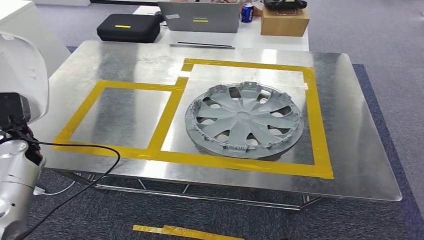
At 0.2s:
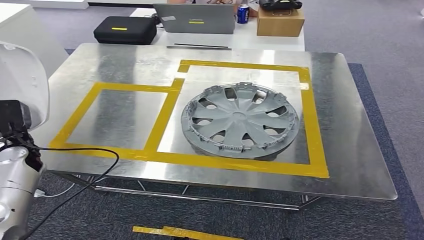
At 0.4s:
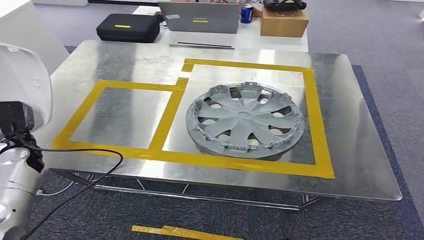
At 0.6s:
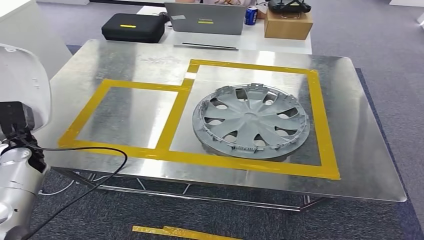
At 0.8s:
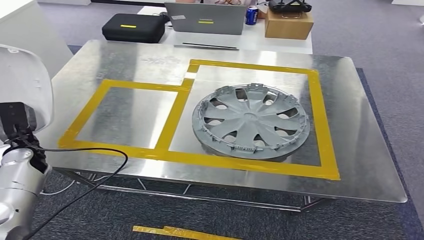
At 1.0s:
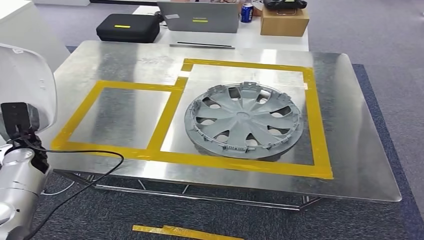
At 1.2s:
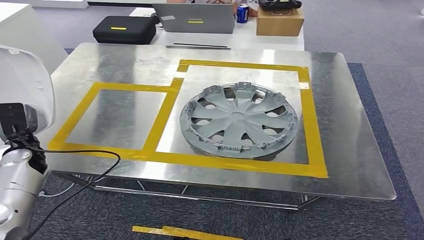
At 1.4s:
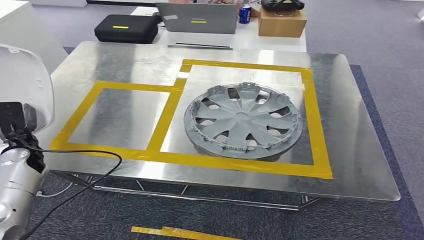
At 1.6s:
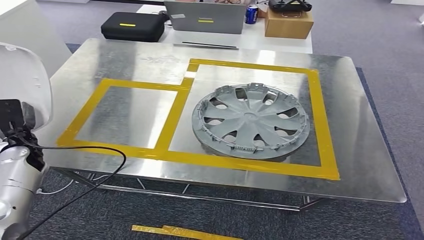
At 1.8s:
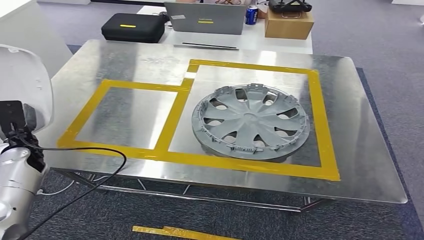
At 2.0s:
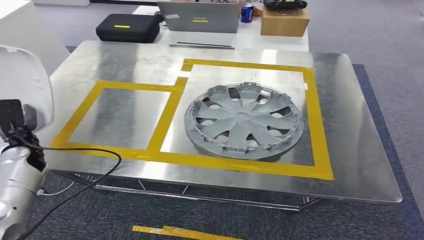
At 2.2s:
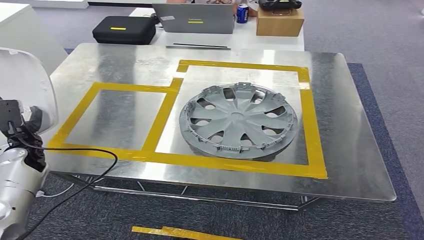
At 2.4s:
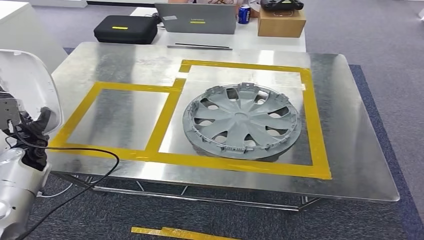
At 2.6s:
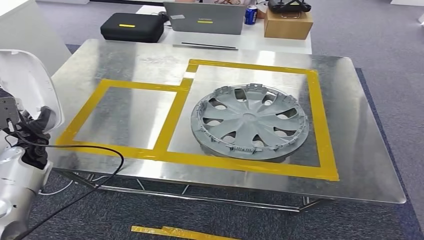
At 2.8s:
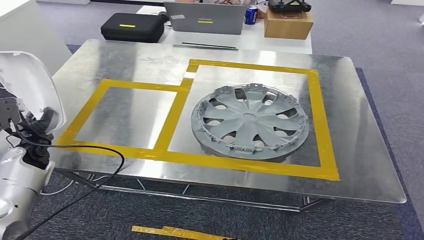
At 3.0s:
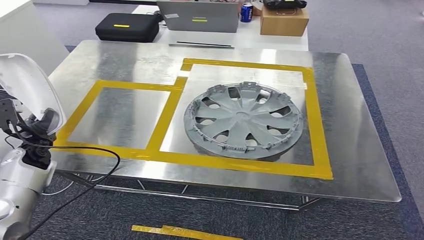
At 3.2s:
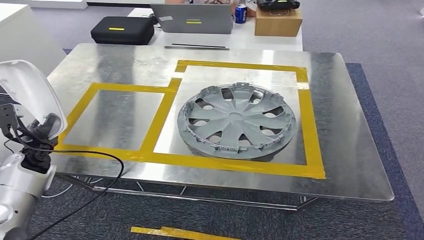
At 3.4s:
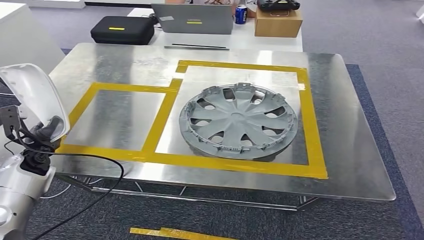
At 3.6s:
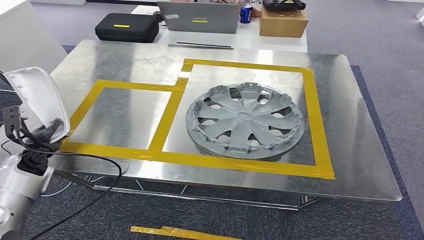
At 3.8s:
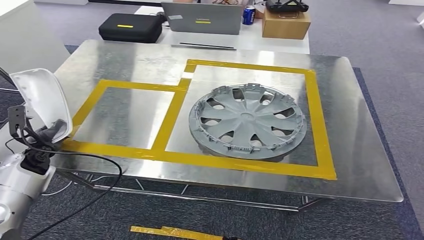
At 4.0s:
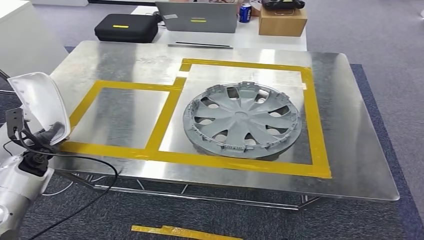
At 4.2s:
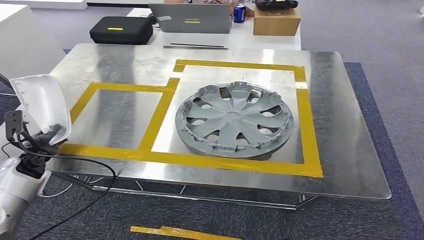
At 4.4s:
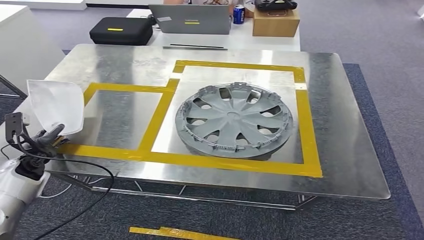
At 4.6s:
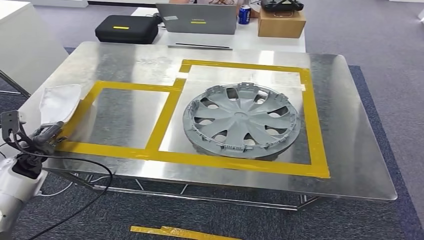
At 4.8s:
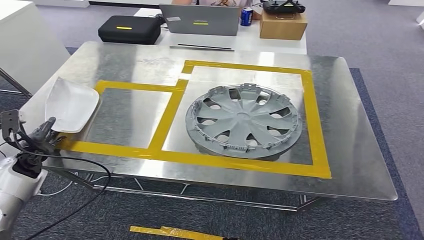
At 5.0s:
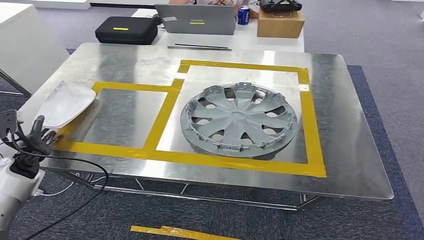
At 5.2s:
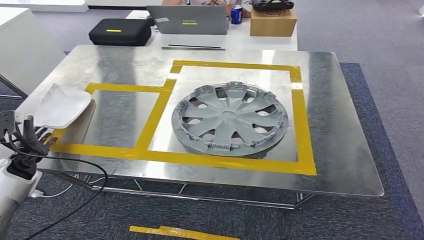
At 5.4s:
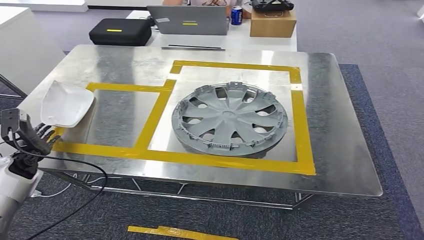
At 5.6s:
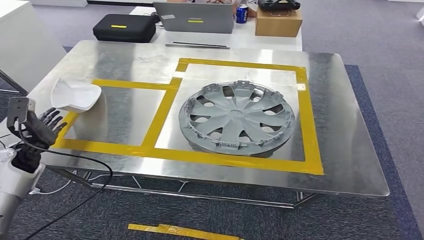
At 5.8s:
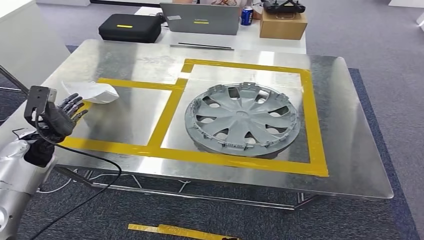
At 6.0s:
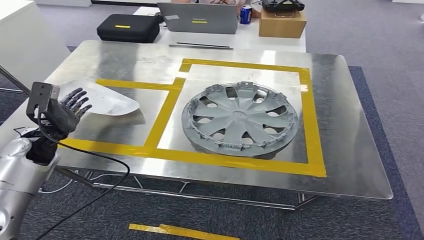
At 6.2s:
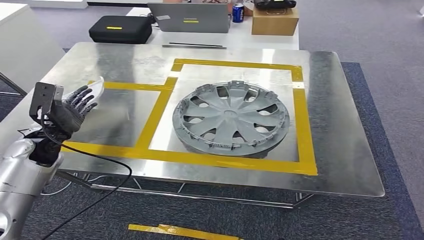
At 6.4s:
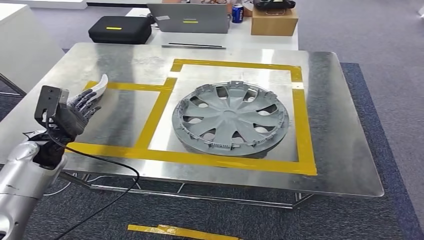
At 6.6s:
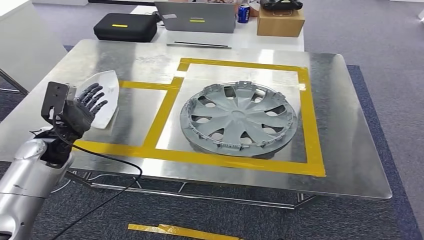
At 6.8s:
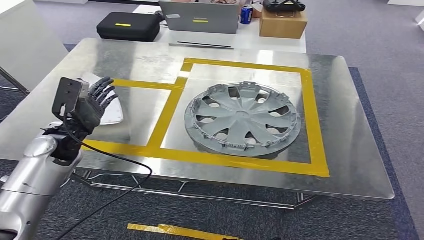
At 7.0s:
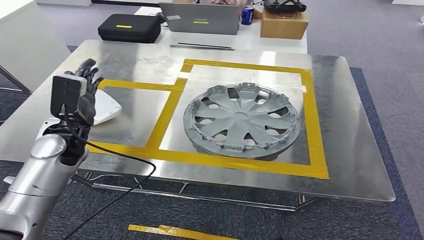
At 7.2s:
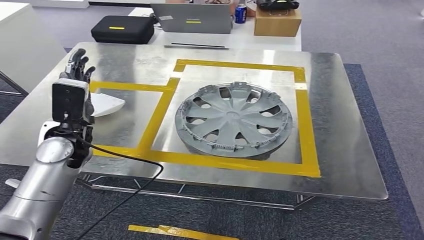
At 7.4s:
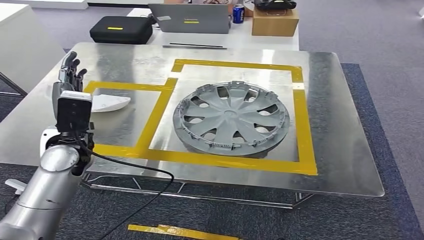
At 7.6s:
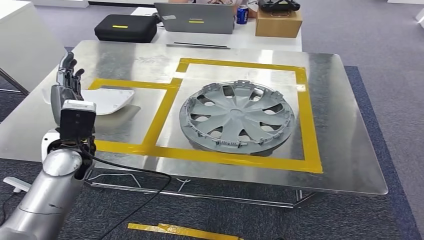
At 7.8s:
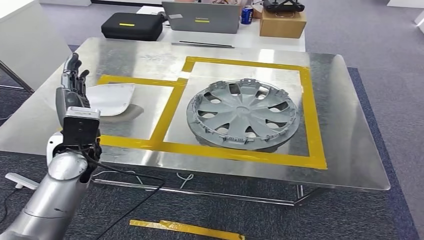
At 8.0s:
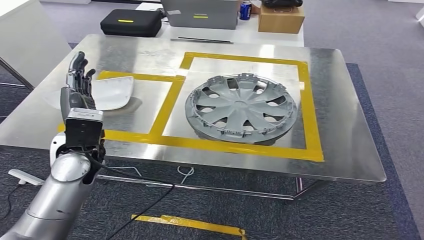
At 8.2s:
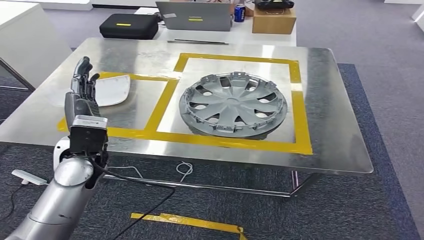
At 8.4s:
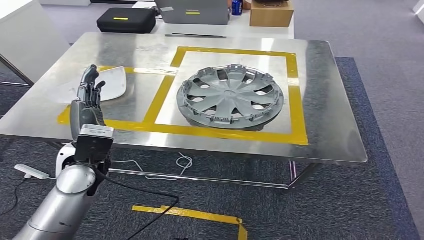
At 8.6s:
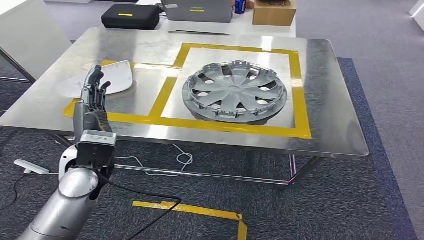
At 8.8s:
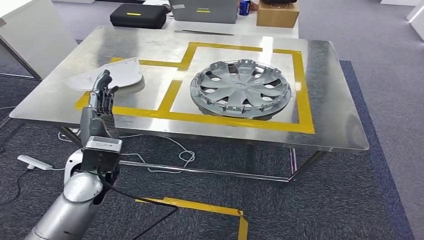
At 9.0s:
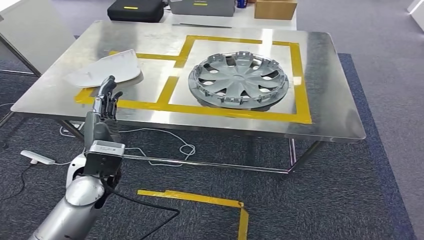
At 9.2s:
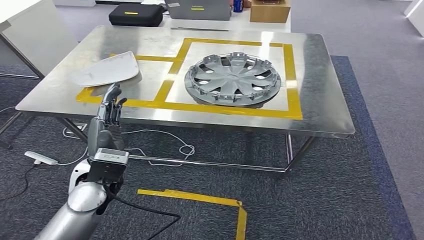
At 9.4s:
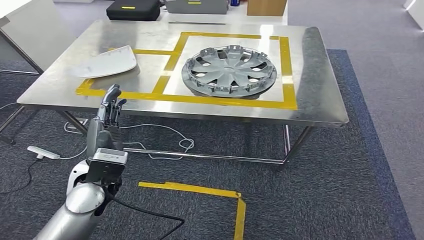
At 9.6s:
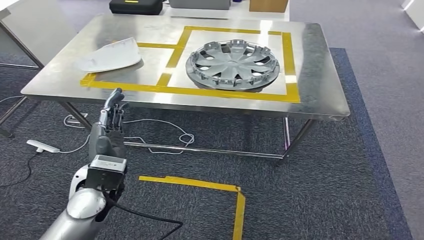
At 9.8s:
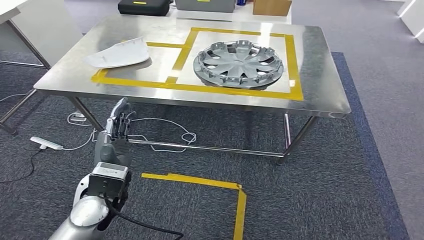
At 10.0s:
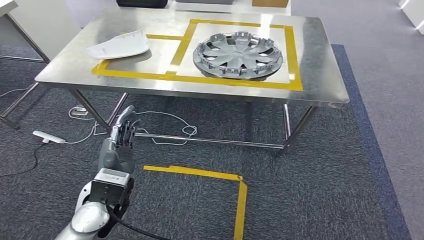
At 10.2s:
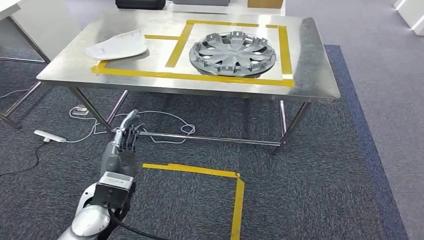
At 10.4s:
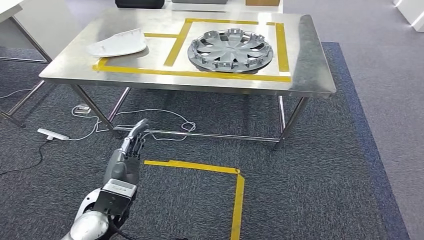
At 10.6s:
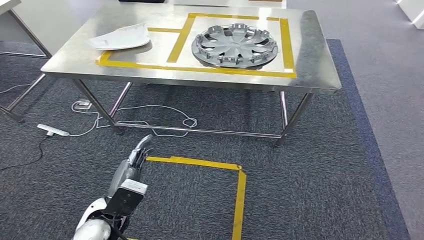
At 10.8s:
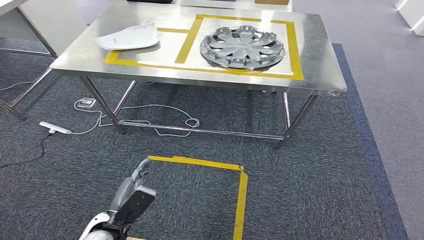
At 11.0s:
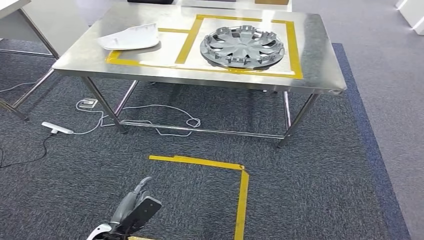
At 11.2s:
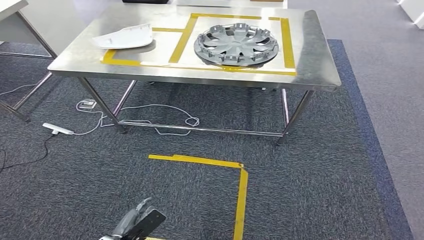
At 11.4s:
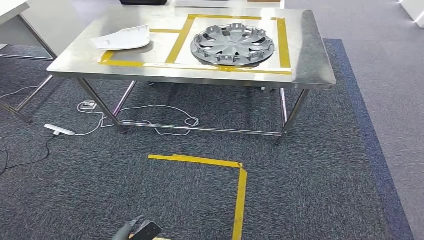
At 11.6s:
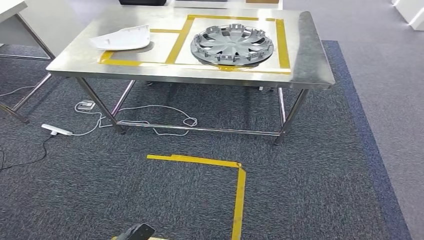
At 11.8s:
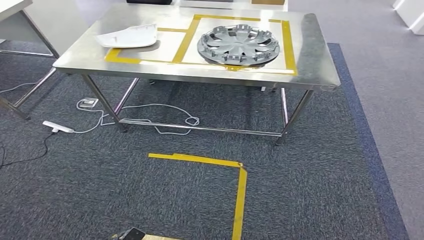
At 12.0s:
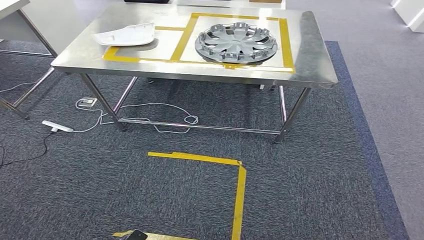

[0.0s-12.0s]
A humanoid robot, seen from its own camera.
Step, 0.0s to 7.0s: Insert the small component into the corresponding slot on the workbench.
0.0s to 1.6s: The hands stay close to where they were, moving slightly.

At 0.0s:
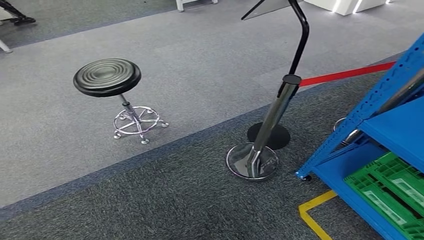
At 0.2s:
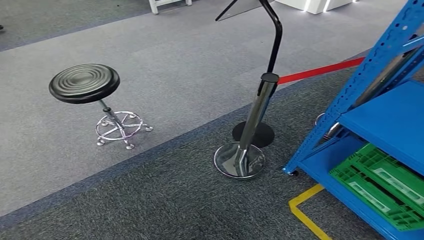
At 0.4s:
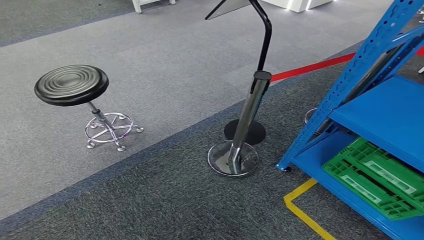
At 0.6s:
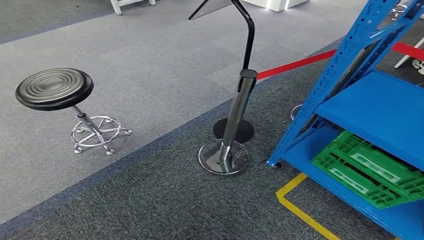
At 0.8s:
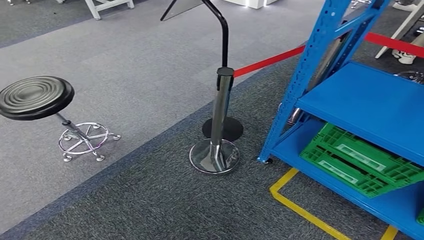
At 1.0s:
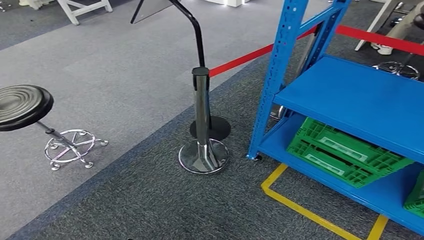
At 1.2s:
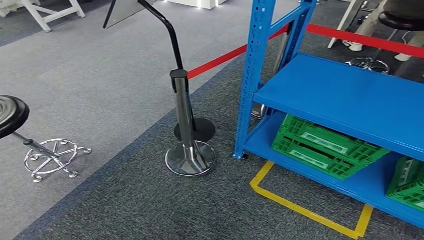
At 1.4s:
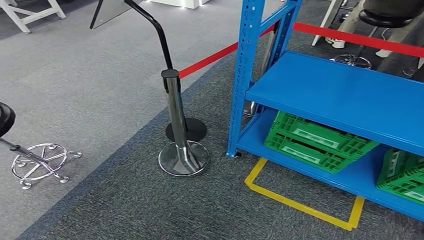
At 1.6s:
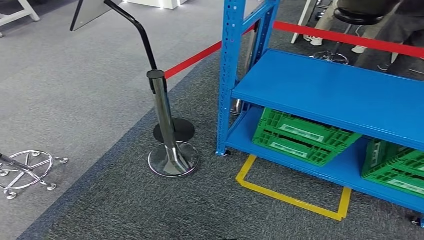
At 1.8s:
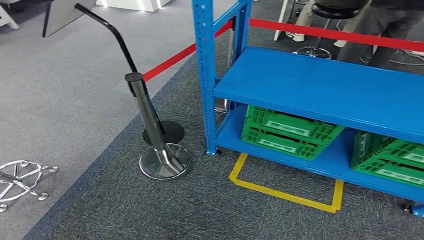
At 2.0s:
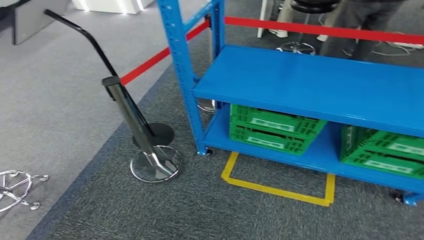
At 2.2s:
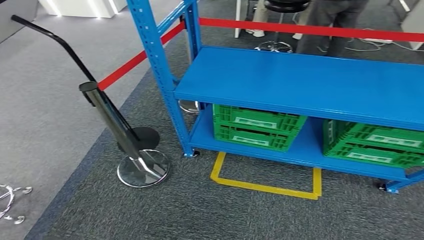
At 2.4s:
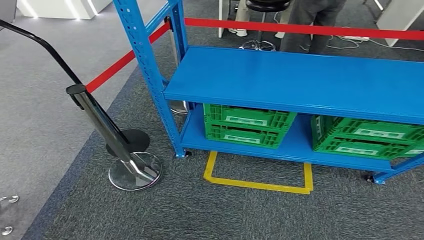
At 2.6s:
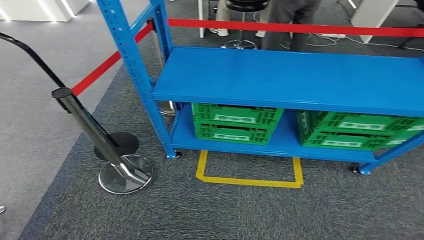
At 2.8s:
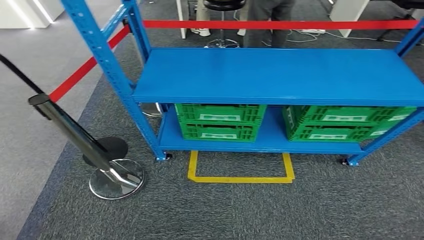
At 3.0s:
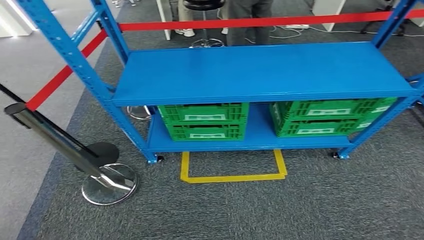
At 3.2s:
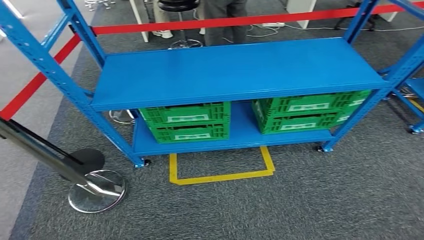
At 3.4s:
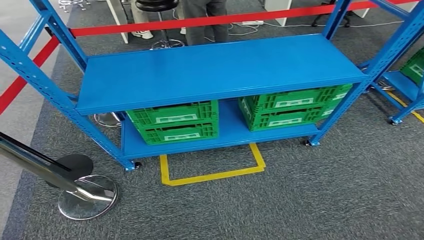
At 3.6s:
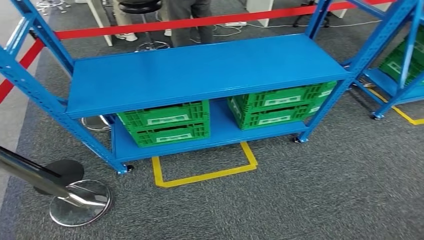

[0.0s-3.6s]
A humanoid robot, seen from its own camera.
Step, 0.0s to 3.6s: Return to the initial position at the workbench.
